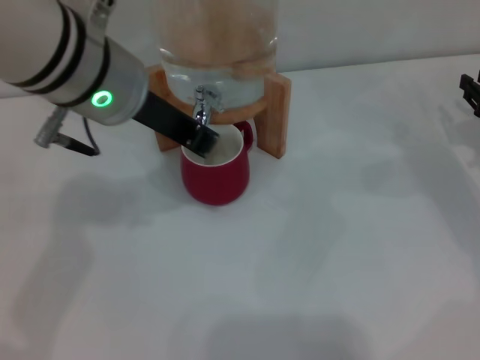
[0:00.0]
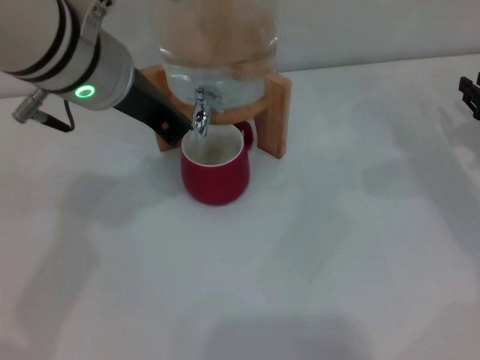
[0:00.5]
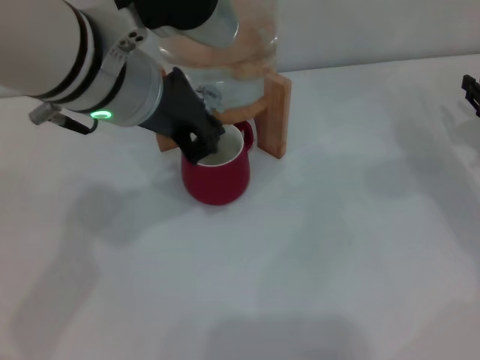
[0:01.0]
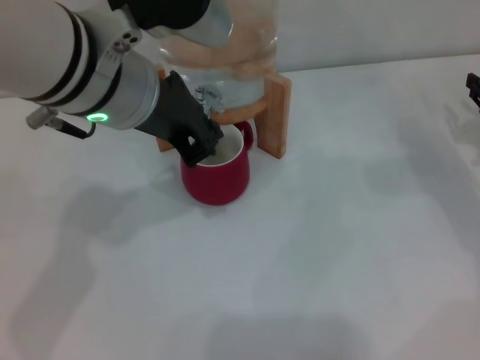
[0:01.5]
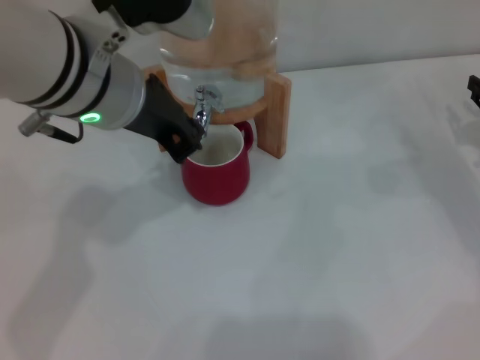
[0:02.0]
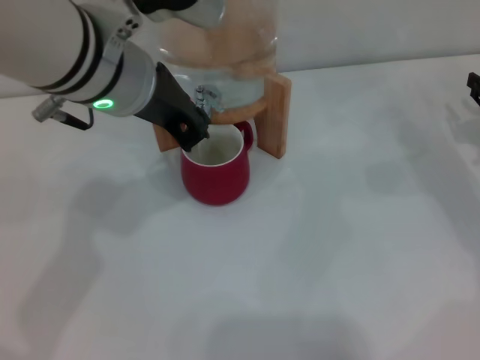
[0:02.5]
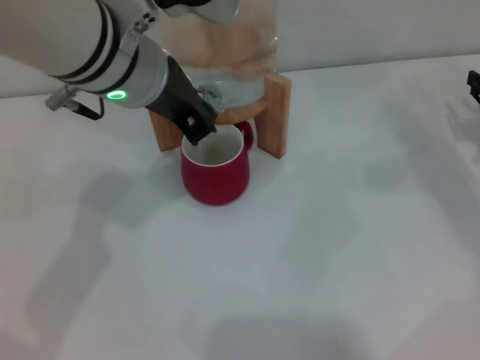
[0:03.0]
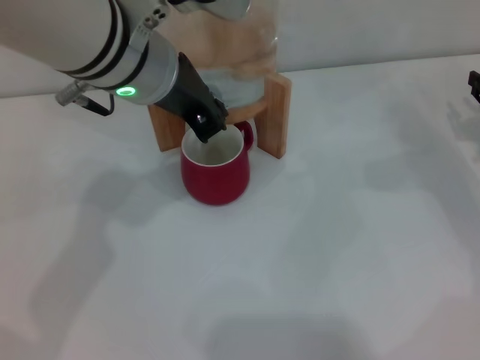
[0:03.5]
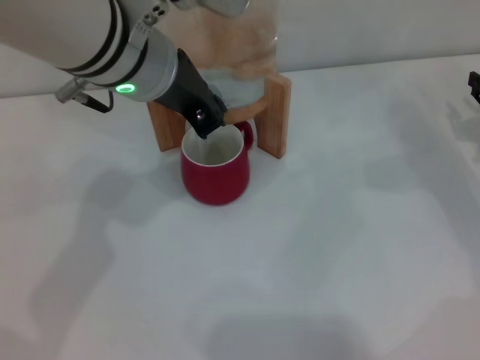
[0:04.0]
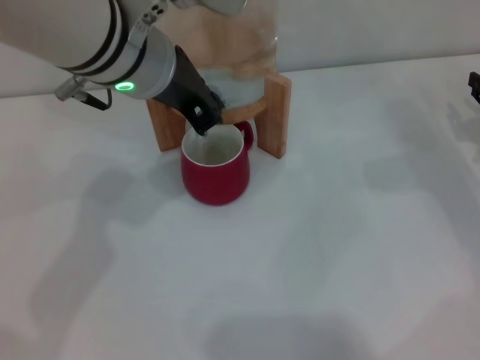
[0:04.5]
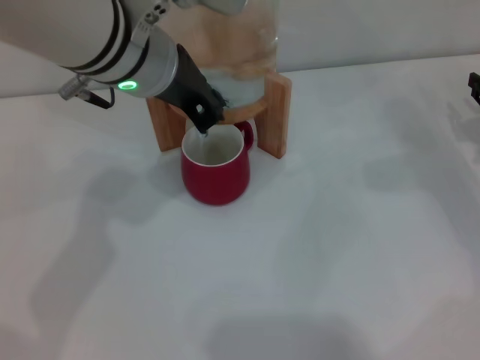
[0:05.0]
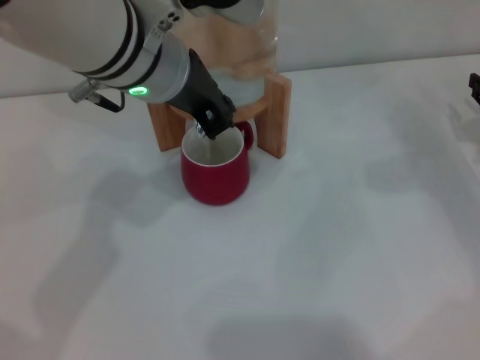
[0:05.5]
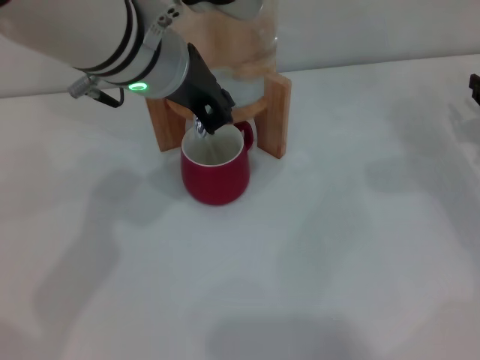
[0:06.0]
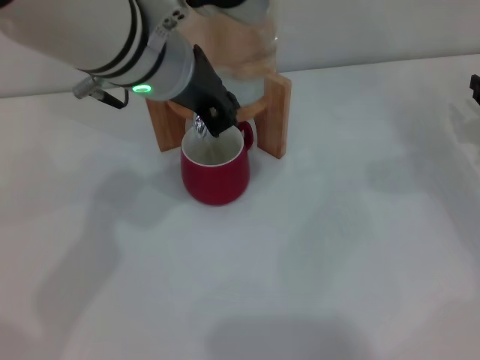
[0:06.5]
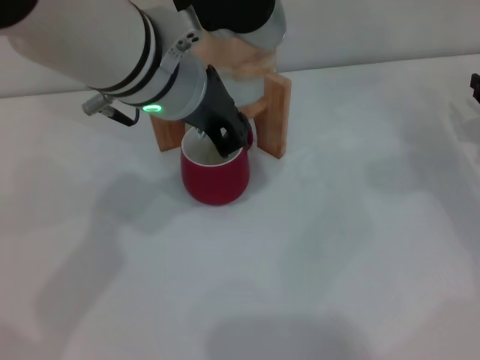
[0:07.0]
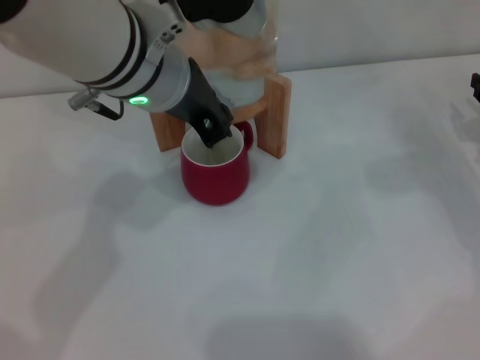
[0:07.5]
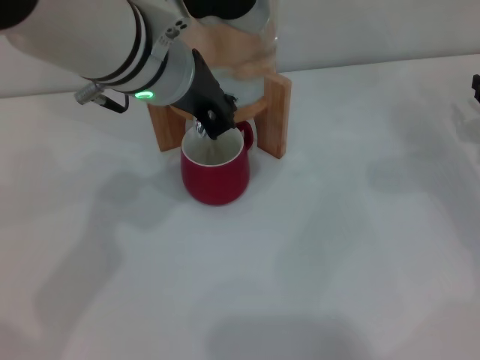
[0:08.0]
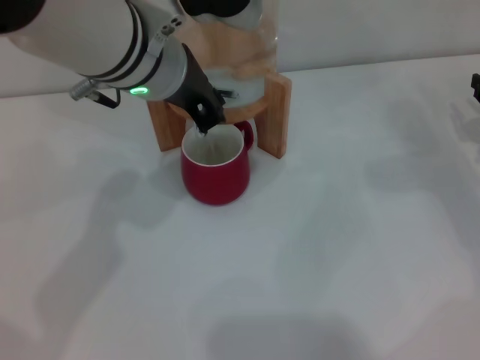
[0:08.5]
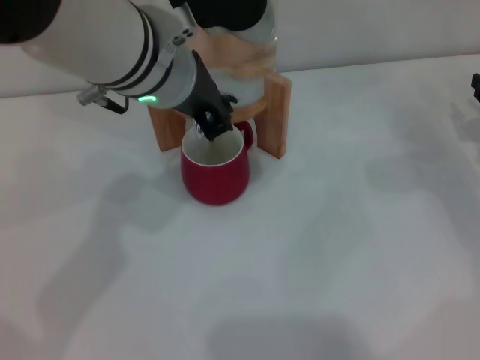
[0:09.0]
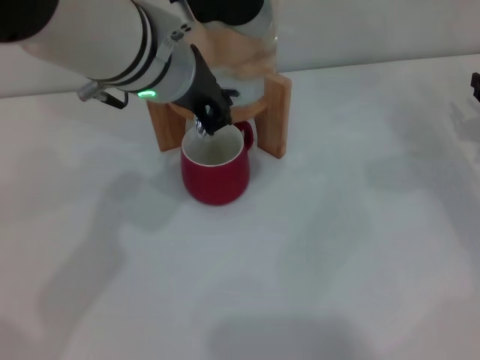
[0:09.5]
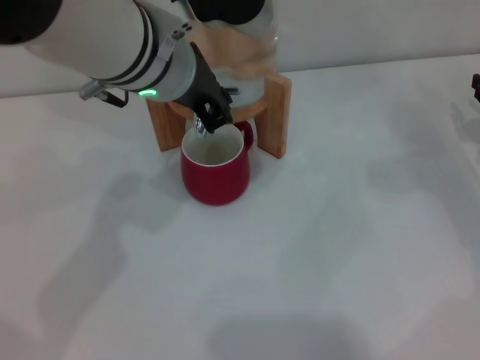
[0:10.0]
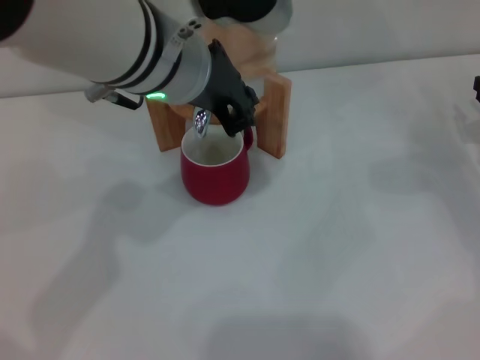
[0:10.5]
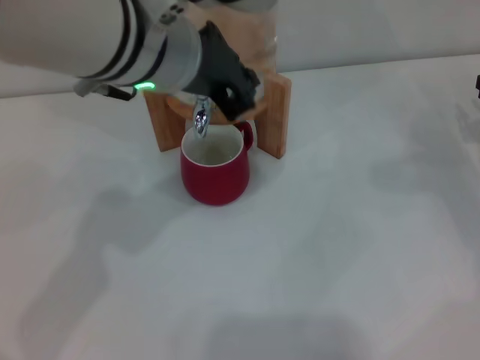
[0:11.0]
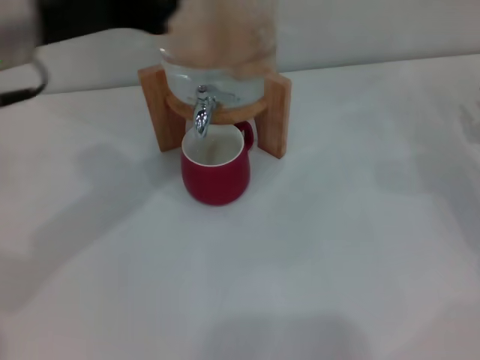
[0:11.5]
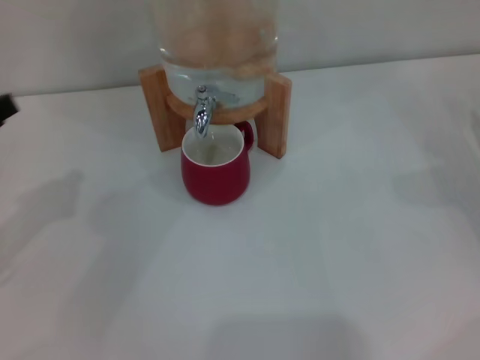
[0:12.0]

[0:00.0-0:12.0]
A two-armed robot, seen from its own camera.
Task of the whole recording: the right gripper pick up the red cup and place it horizontally under the faucet, the left gripper turn on the faucet to fill the cup, and then turn off the faucet.
Step, 0:00.0 to 0:03.5: Open the dispenser valve and fill the cup with water with the left gripper.
Step, 0:04.0 to 0:11.0: Close the dispenser valve with the left gripper.
0:02.0 to 0:04.0: The grippers stay close to where they were, moving slightly.
0:04.0 to 0:06.0: Both grippers stay put.
0:06.0 to 0:08.0: The grippers make only small movements.
0:08.0 to 0:10.0: Both grippers stay about where they are.
0:10.0 to 0:12.0: The left gripper is displaced to the left by about 25 cm.

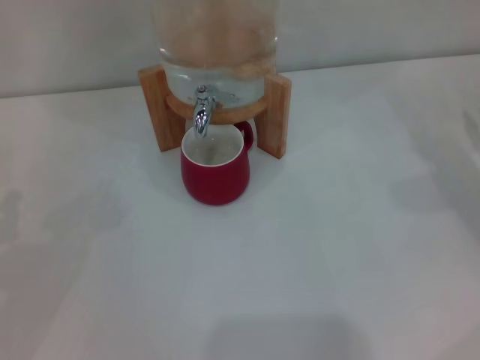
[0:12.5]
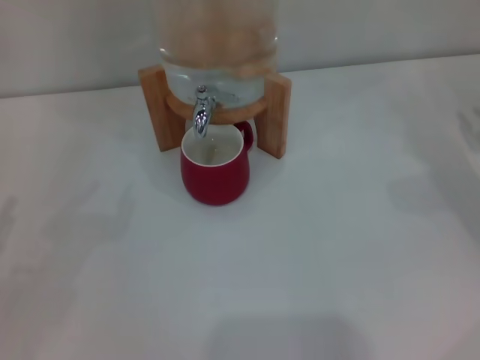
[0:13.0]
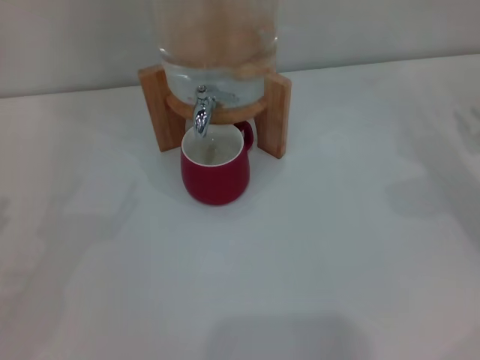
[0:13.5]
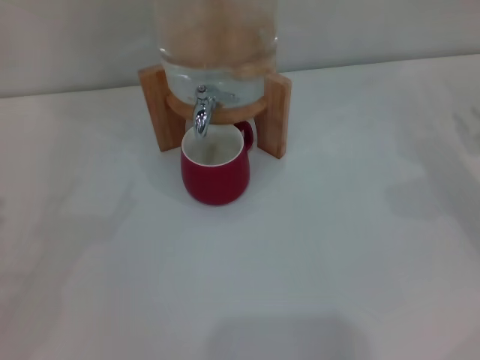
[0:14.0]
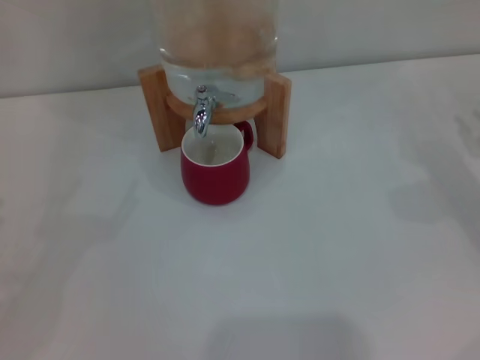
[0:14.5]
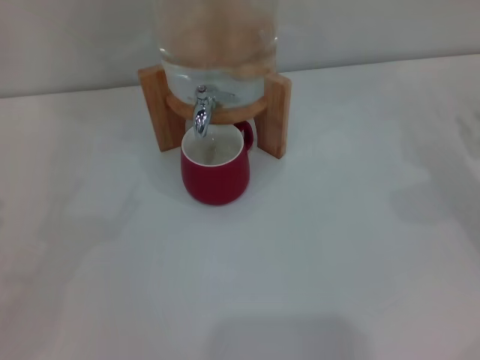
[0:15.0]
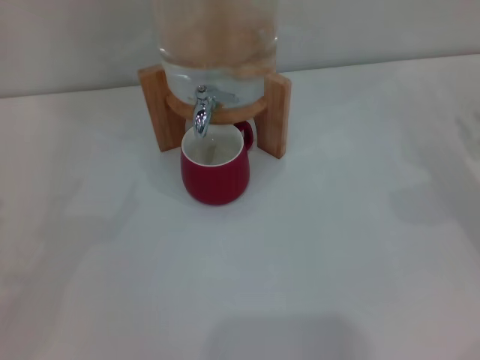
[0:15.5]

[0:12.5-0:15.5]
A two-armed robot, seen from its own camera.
Task of the whole recording: the right gripper pick up the red cup and place it horizontally under the faucet, the left gripper turn on the faucet to fill the cup, and then turn off the faucet.
0:14.0 to 0:15.5: Both grippers stay put.
